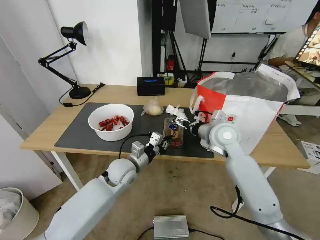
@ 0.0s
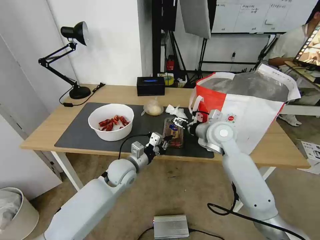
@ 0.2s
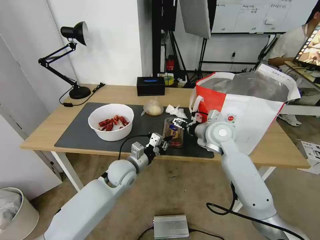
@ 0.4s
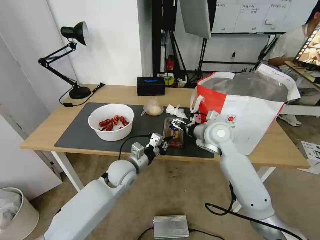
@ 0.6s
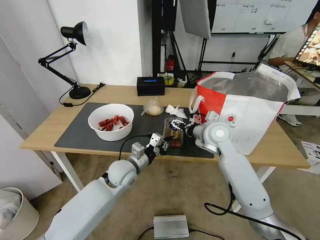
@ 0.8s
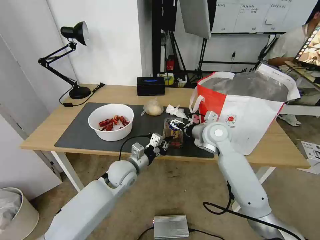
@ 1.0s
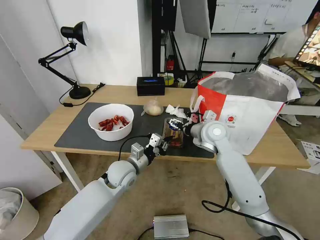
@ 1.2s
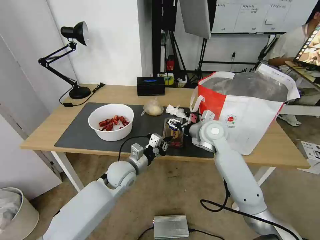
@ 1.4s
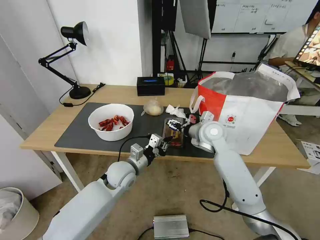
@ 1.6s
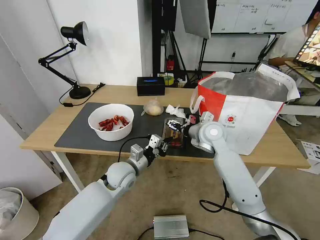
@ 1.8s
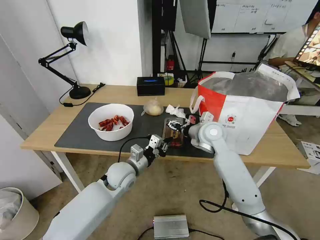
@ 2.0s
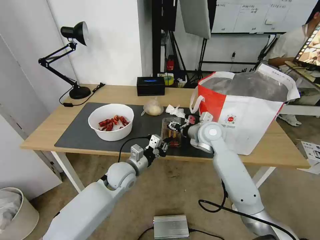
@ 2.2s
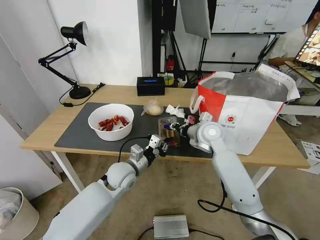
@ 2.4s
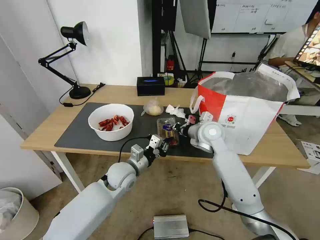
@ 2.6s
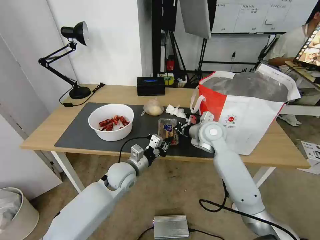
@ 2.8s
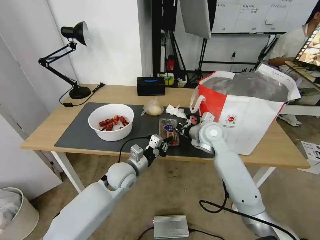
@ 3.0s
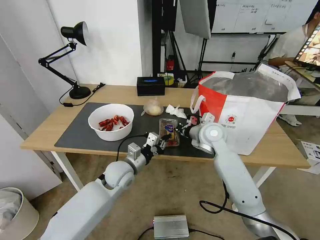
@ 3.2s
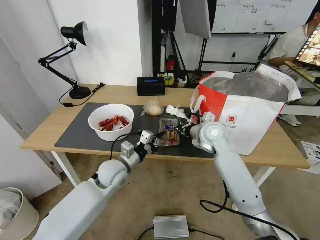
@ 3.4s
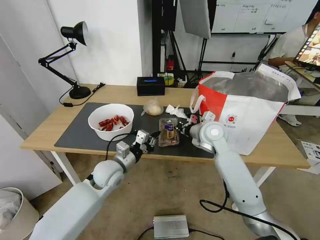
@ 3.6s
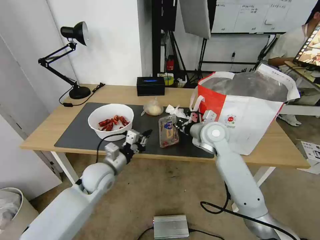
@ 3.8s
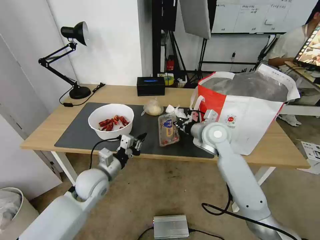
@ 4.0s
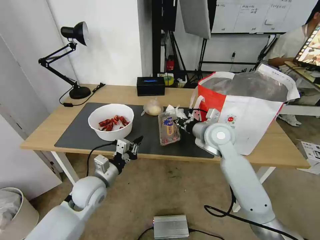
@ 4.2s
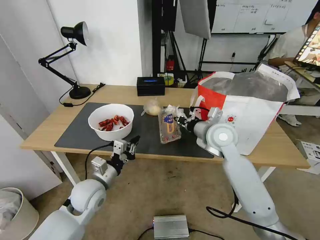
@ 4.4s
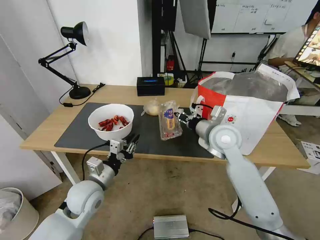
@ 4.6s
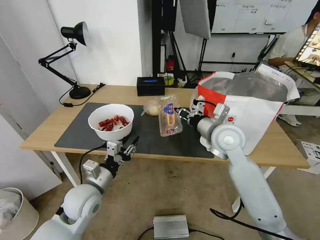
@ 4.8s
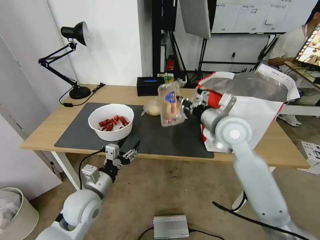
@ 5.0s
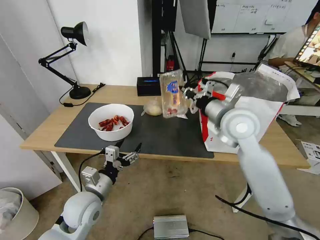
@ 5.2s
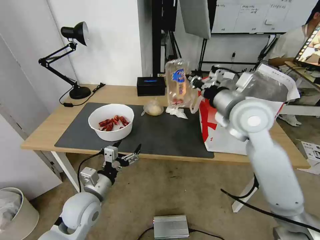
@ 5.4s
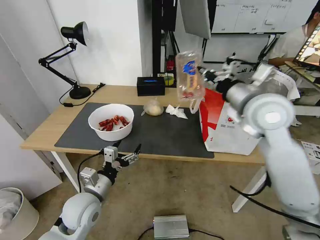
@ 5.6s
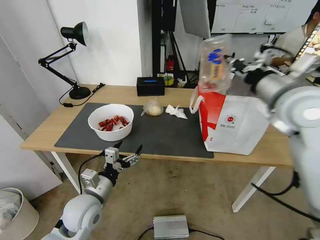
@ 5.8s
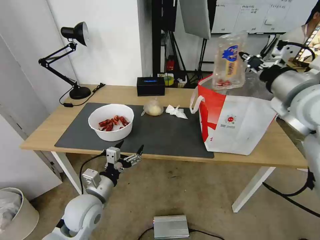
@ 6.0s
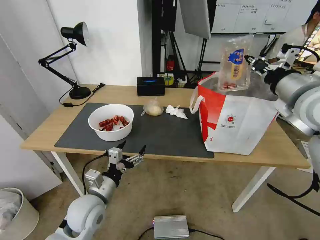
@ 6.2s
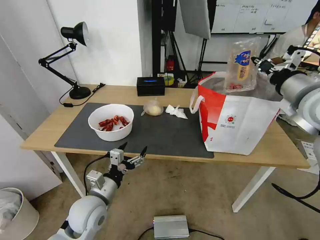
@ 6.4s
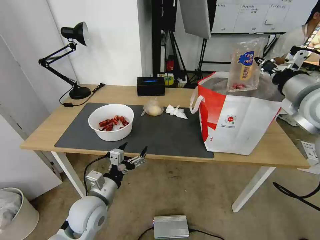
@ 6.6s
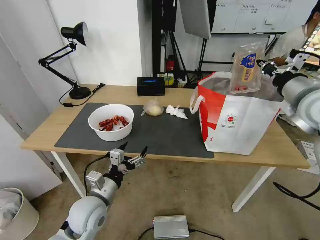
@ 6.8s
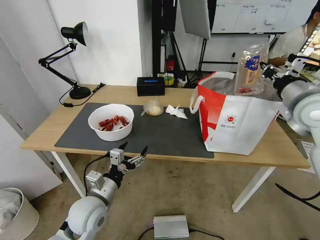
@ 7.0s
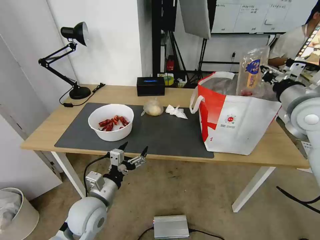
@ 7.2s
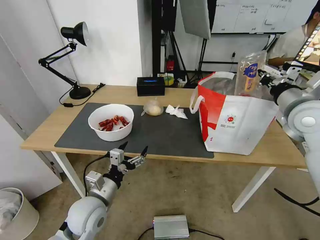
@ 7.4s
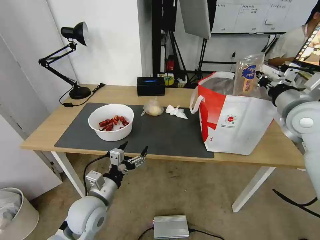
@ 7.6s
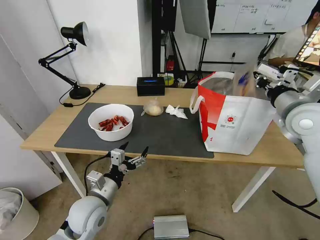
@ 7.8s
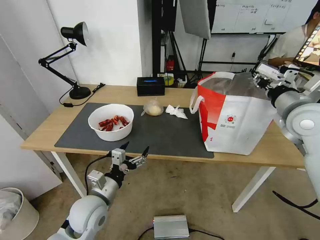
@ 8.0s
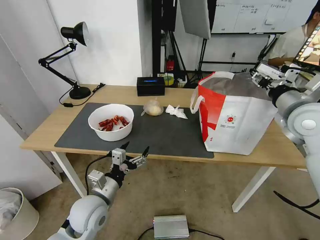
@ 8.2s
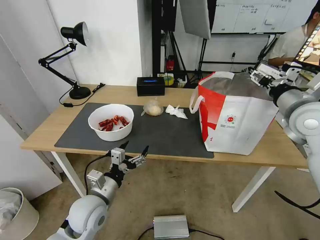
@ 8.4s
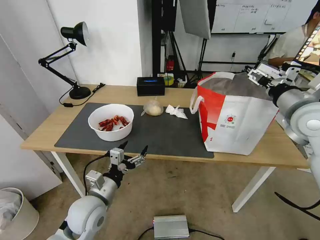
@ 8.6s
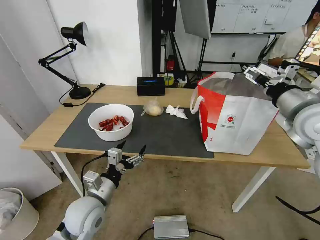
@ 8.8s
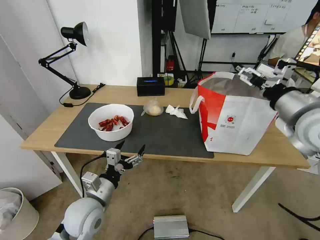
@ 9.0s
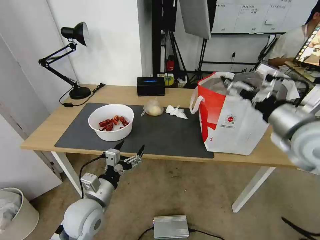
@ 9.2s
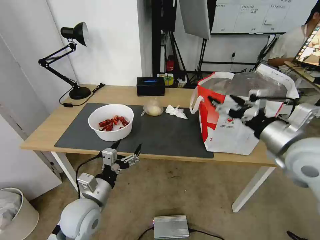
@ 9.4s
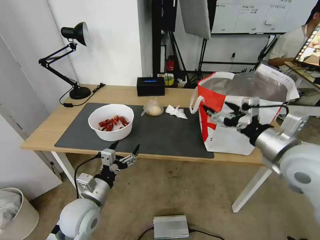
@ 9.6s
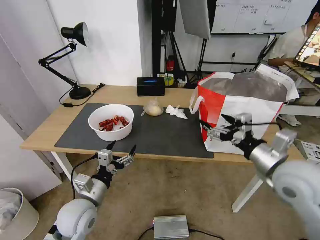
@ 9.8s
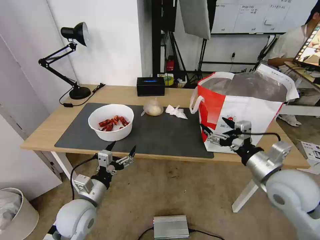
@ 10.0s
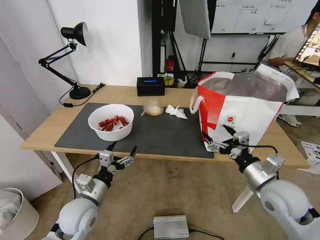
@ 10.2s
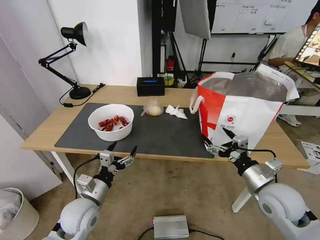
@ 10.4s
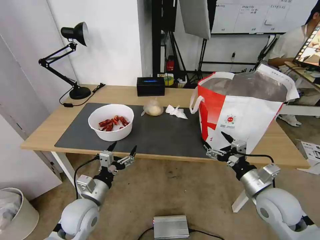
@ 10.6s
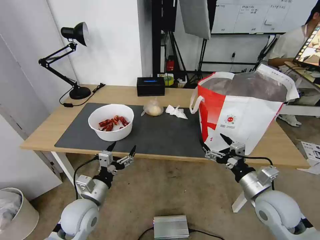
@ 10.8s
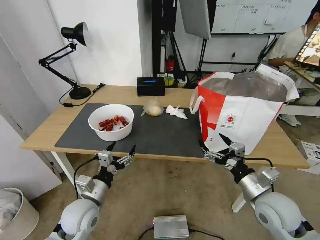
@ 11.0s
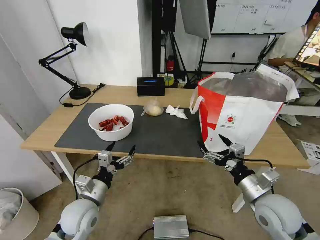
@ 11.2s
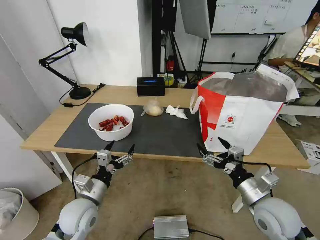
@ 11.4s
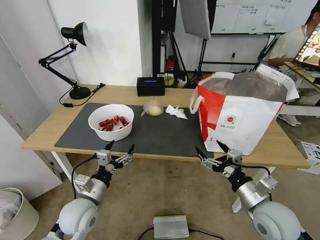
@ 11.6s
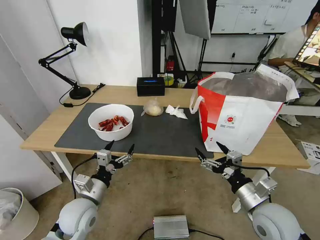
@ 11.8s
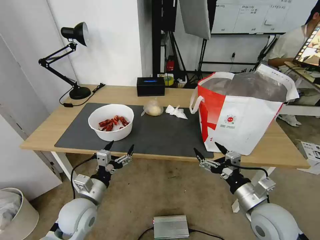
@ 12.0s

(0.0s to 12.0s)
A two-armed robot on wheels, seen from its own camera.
Task of the whole recording: Pick up the trash from the table and place it into the takeout bag.
0.0s - 1.6s: The grippers stay close to where they were, moving slightly.
1.6s - 3.0s: The right gripper closes its fingers.
3.0s - 4.4s: The left gripper moves to the left and backward, approximately 10 cm; the right gripper ends up roughly 5 cm from where it was.
4.4s - 6.0s: The left gripper travels backward by roughly 5 cm, and opens. Meanwhile the right gripper is displaced upward and to the right by about 20 cm.
6.0s - 7.6s: The right gripper shifts about 10 cm downward and to the right.
7.6s - 9.0s: The right gripper moves backward, some 5 cm, and opens.
9.0s - 10.4s: The right gripper moves downward, some 20 cm.
10.4s - 12.0s: The right gripper ends up some 5 cm from where it was.

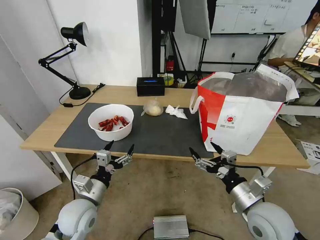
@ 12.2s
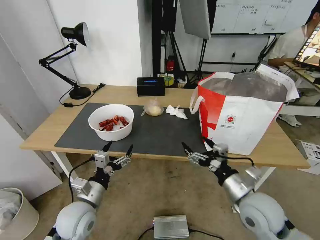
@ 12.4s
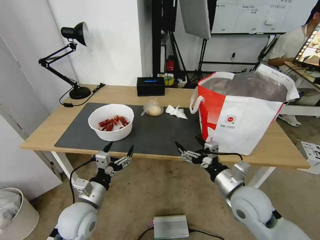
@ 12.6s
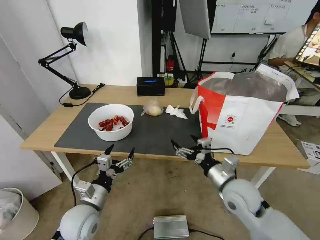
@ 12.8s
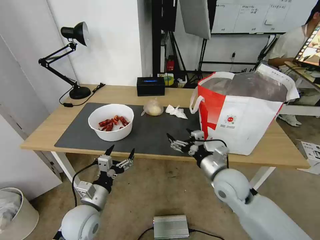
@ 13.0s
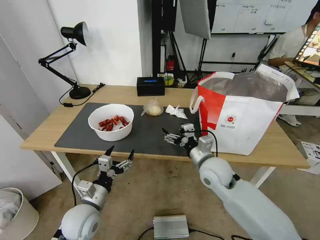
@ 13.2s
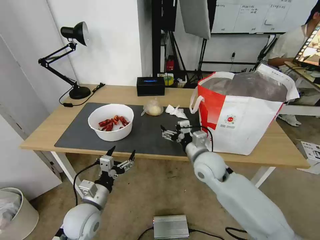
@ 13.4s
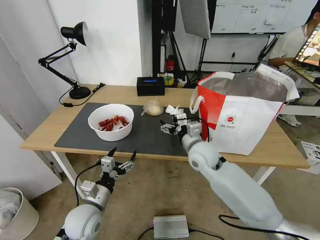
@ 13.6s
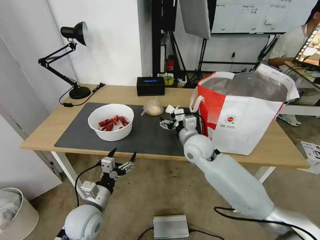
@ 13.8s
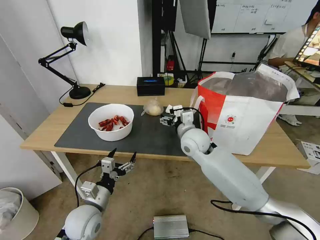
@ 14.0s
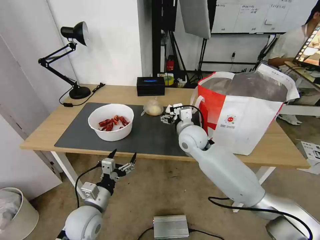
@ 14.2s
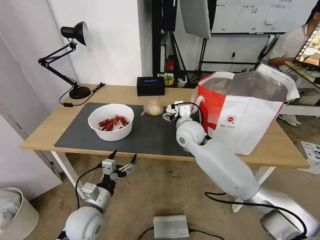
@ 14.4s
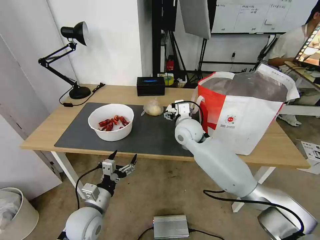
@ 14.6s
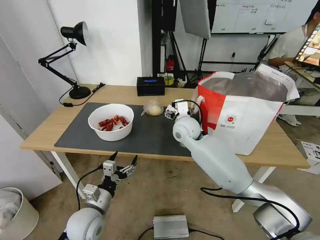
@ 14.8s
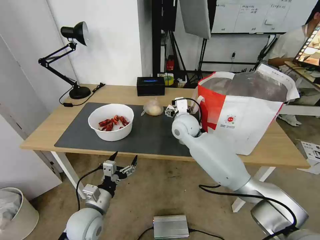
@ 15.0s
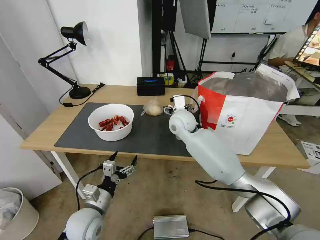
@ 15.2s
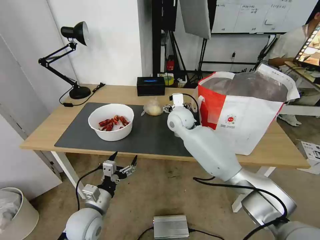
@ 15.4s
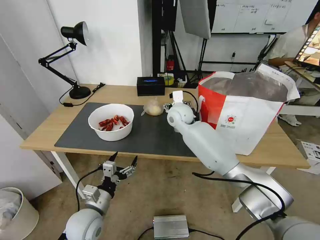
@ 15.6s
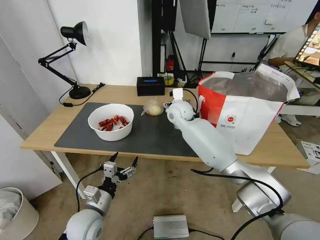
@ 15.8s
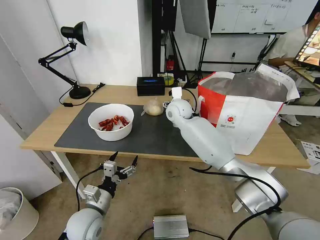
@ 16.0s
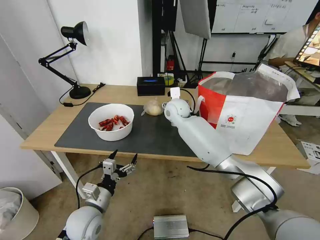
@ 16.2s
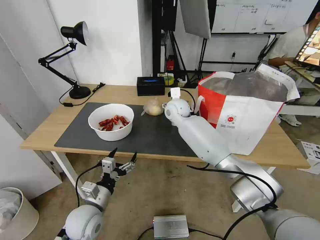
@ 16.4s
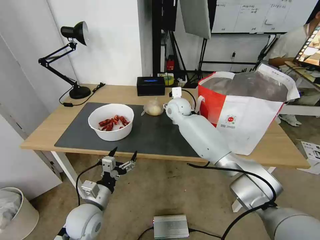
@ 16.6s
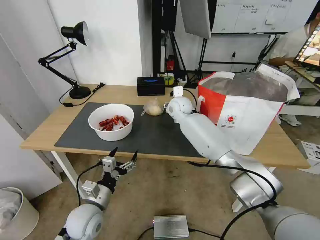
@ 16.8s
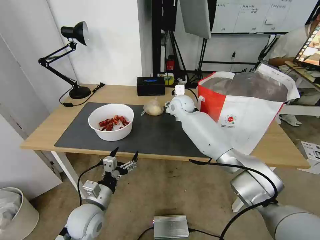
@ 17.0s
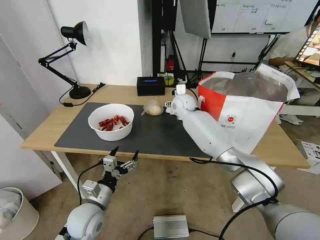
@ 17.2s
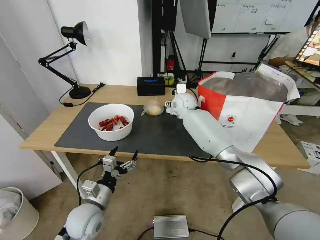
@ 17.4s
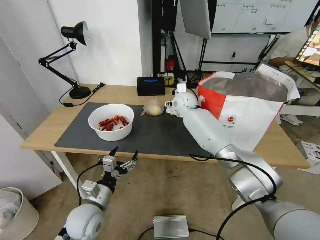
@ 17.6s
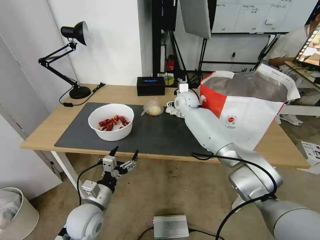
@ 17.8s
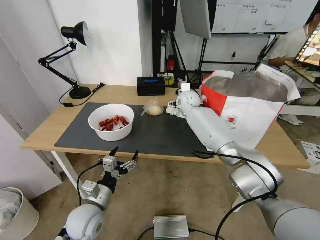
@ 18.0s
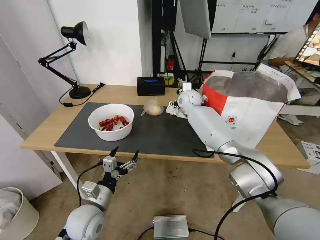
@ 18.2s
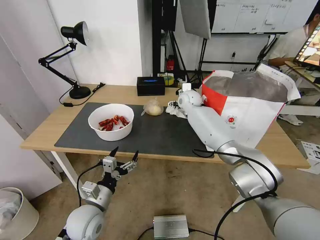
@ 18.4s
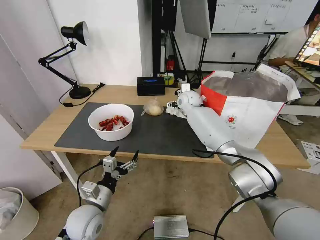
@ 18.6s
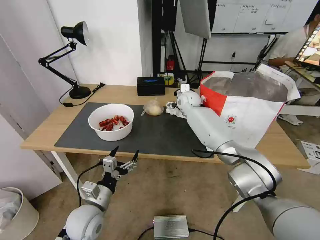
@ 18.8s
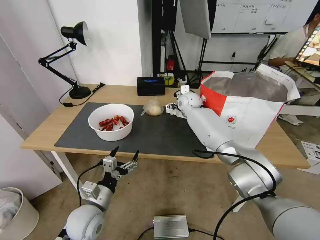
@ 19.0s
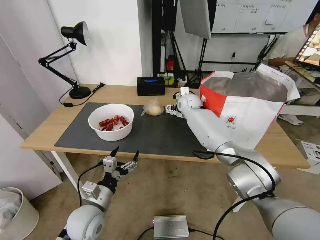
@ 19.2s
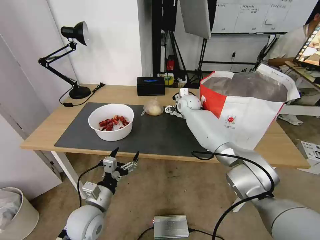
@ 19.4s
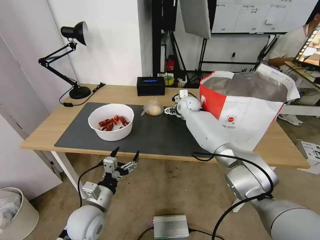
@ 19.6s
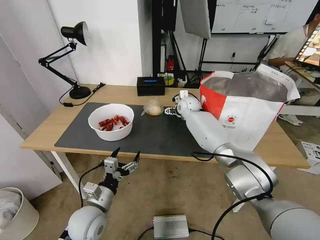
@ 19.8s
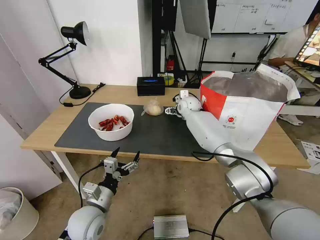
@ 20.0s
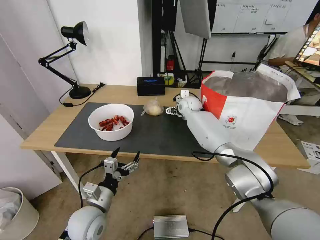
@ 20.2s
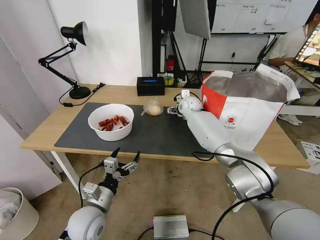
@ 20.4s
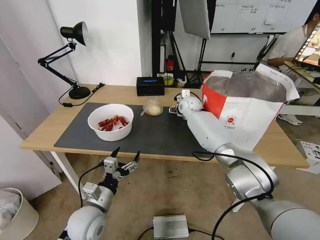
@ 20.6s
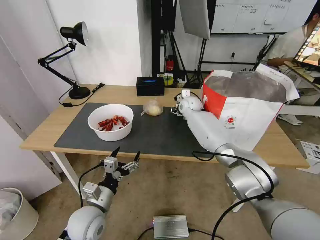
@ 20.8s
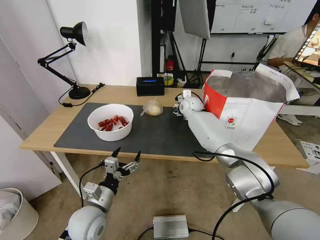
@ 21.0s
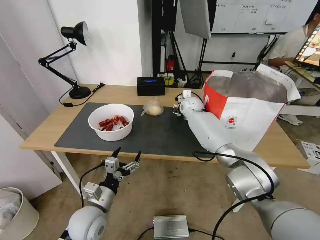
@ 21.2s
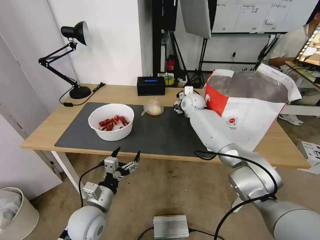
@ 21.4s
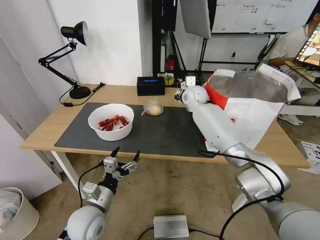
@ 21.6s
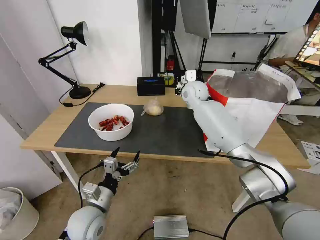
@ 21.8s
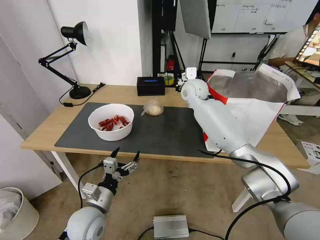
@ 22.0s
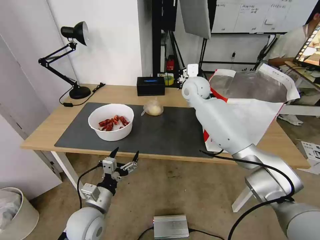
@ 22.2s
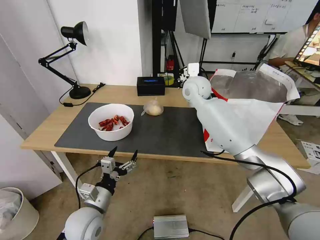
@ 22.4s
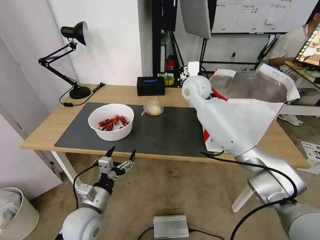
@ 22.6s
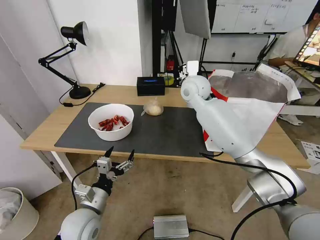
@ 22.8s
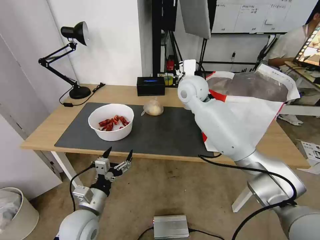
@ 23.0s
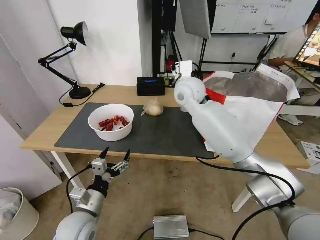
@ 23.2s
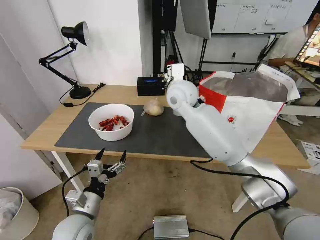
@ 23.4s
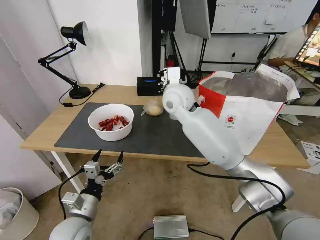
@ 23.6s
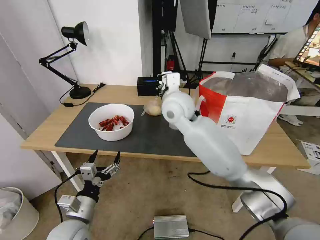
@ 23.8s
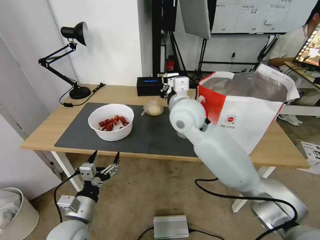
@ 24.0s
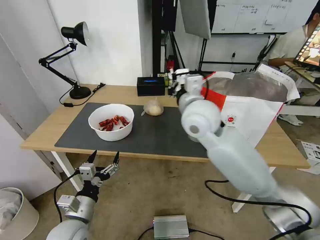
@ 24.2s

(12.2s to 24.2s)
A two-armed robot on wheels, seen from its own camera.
Task of the whole recording: Pick up the trash from the table and place it into the takeout bag.
12.2s - 13.8s: The right gripper shifts roughly 25 cm forward and to the left.
13.8s - 15.2s: The right gripper is displaced forward by some 10 cm.
15.2s - 16.6s: The right gripper travels forward by roughly 10 cm.
16.6s - 18.2s: The right gripper travels to the right and forward by roughly 10 cm.
18.2s - 19.8s: The grippers move only a little.
19.8s - 21.2s: The right gripper closes.
21.2s - 22.6s: The right gripper heads upward and backward, covering approximately 15 cm.
22.6s - 24.2s: The right gripper travels backward by roughly 15 cm.
